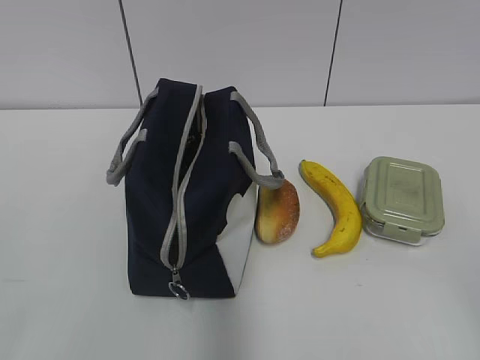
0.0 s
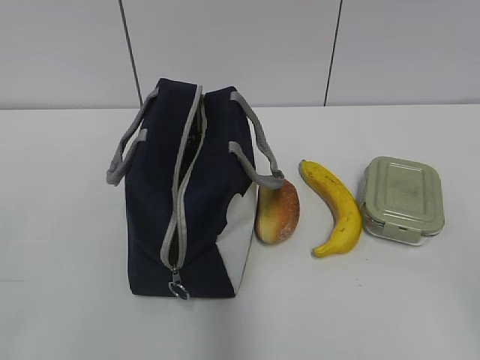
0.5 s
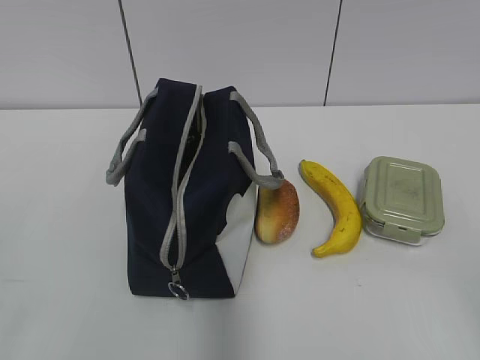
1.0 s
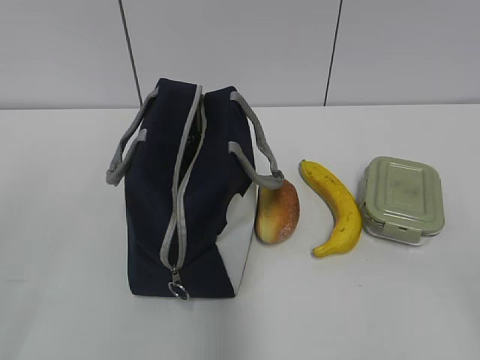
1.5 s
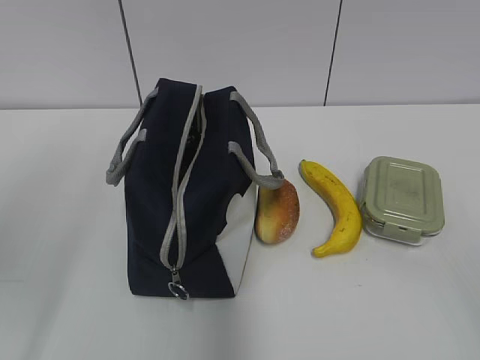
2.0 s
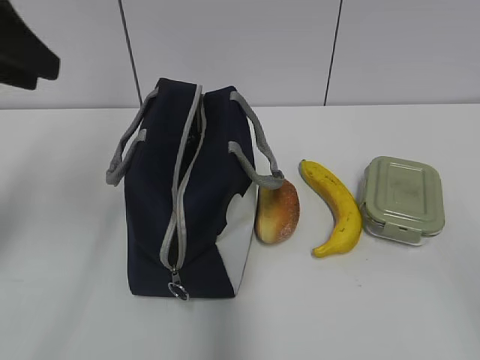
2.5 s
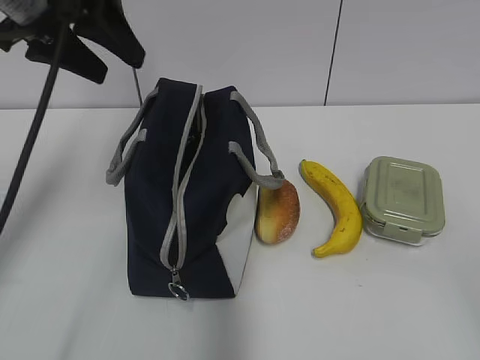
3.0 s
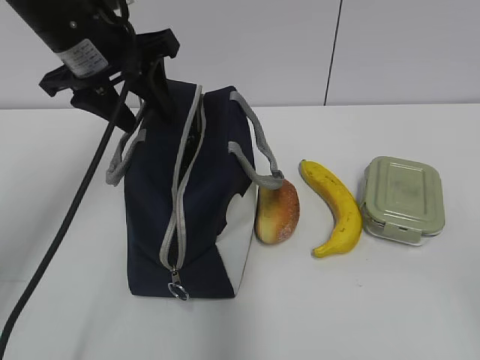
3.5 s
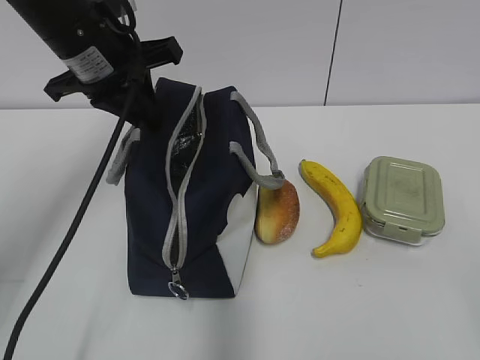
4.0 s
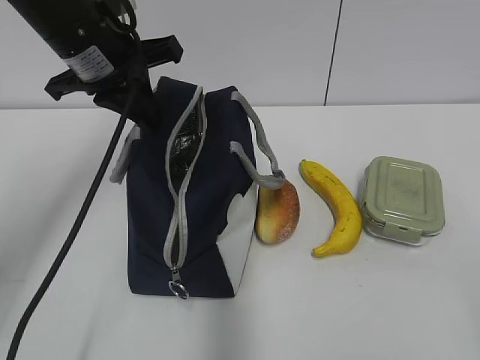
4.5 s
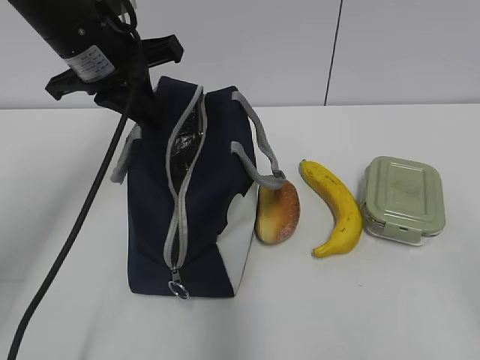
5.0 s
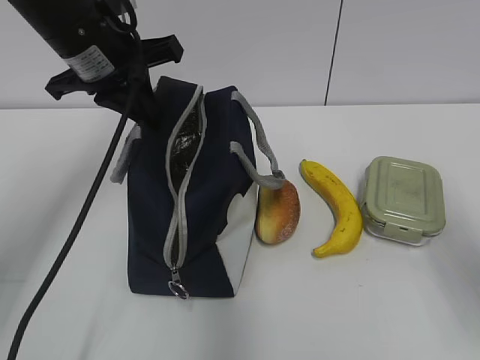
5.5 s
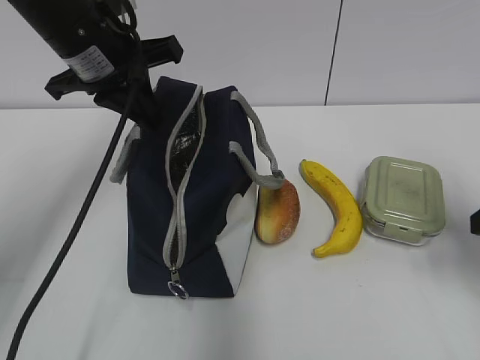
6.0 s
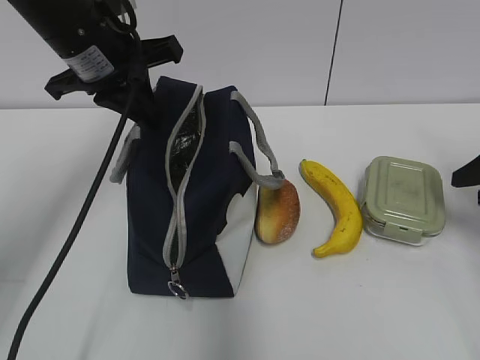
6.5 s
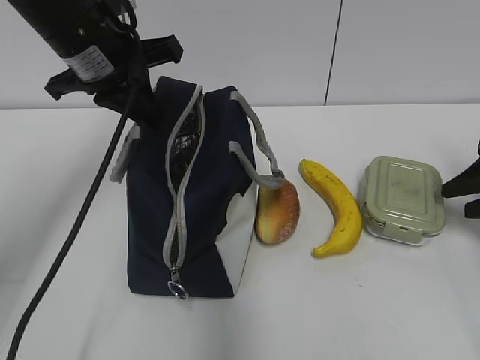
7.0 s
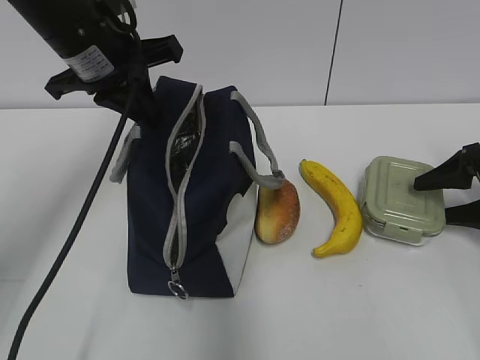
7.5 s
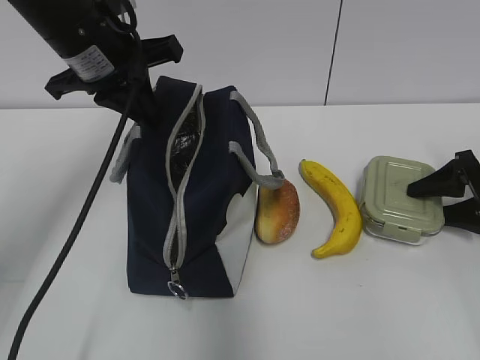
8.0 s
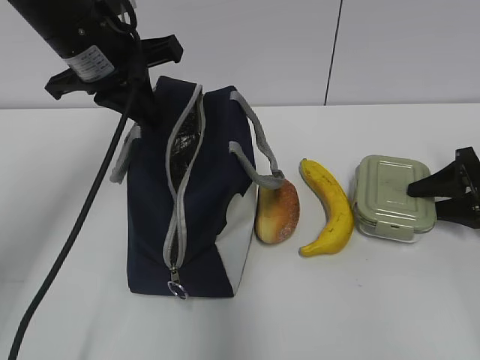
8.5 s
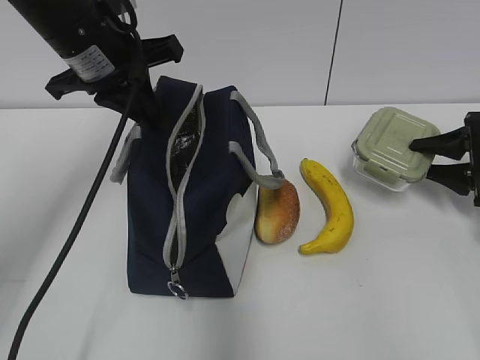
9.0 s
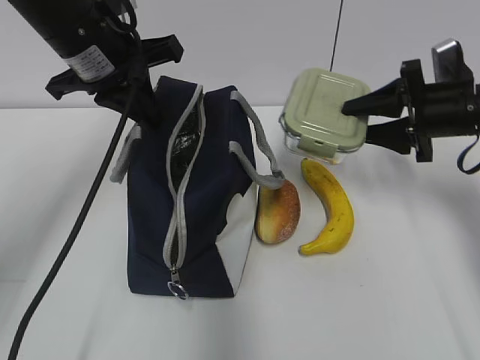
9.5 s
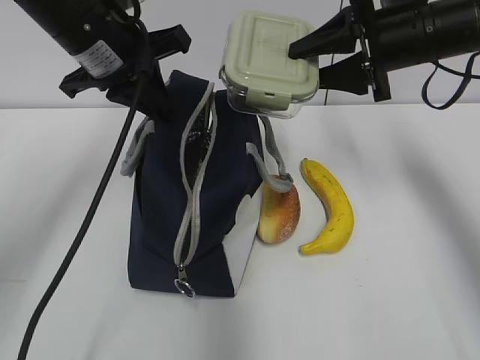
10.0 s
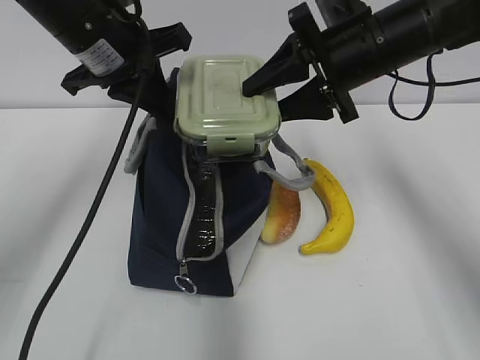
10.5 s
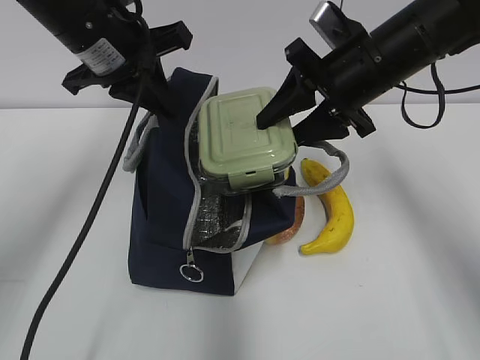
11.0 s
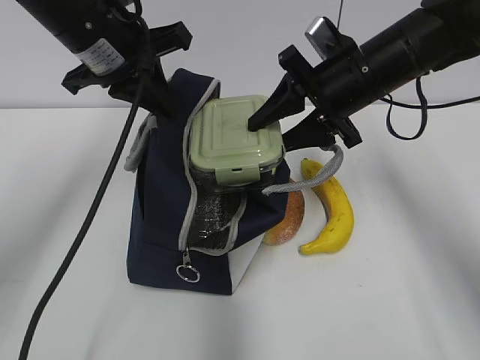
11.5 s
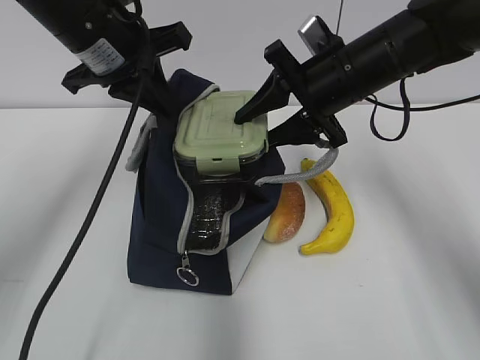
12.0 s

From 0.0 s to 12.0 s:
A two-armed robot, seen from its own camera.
Step, from 0.0 s to 8.5 s: Grab the lunch box with your right hand.
From 2.0 s to 4.0 s: The left gripper heads forward and to the right, covering about 25 cm, and opens, then closes once more.
From 4.0 s to 6.0 s: The right gripper goes roughly 25 cm forward.
From 6.0 s to 8.0 s: The right gripper heads forward, downward and to the right, covering roughly 20 cm.
From 8.0 s to 10.0 s: The right gripper heads upward and to the left, covering approximately 25 cm.
From 10.0 s to 12.0 s: The right gripper travels to the left by some 5 cm.

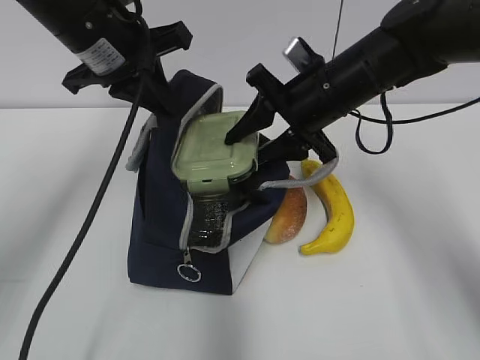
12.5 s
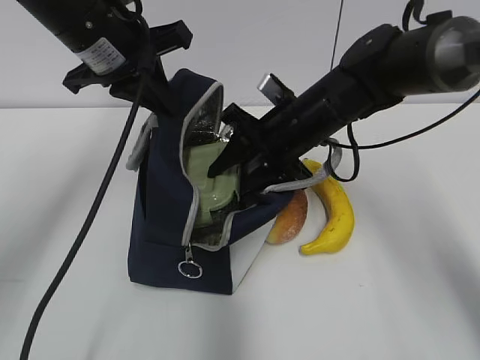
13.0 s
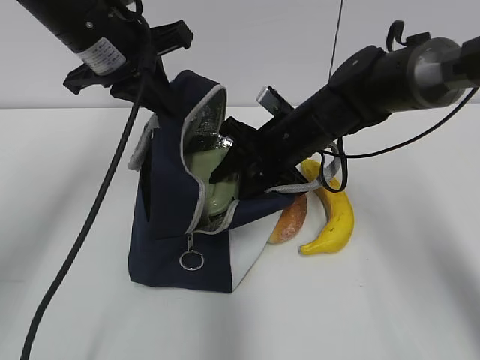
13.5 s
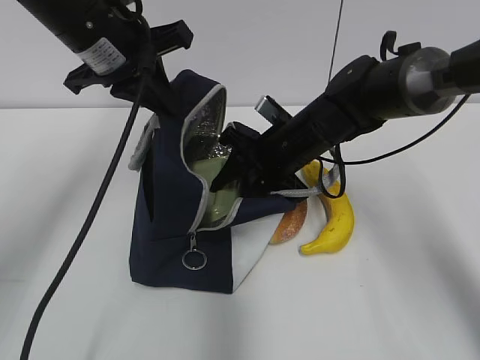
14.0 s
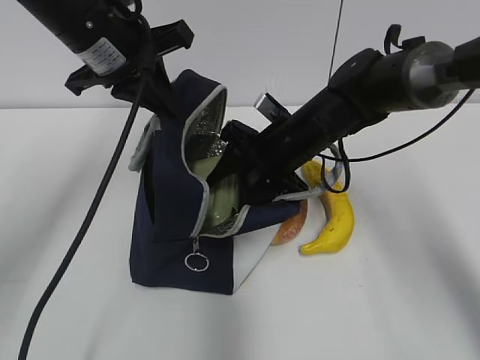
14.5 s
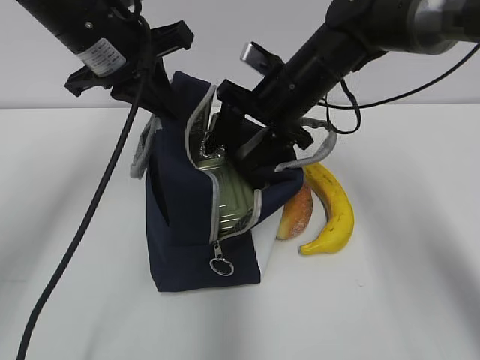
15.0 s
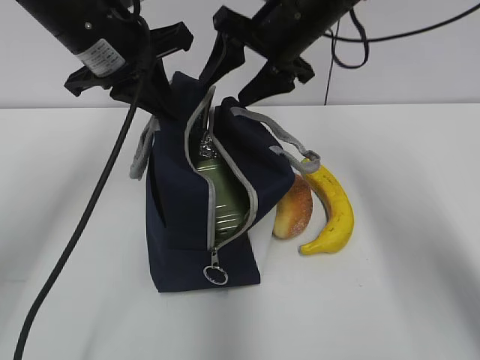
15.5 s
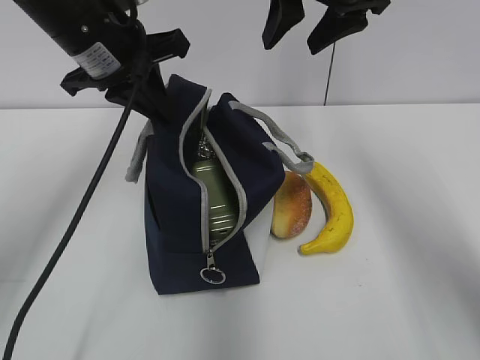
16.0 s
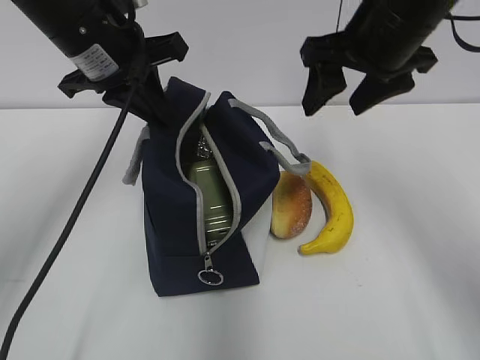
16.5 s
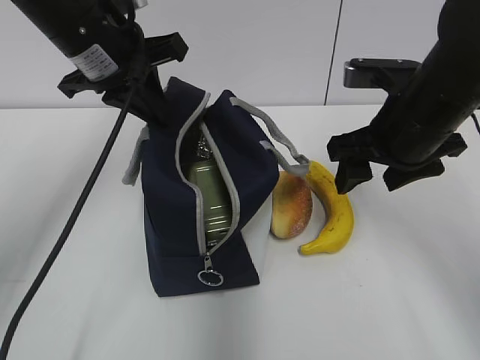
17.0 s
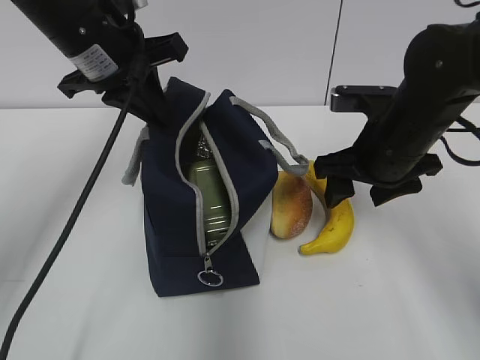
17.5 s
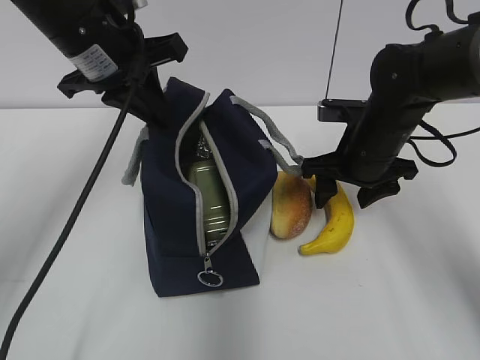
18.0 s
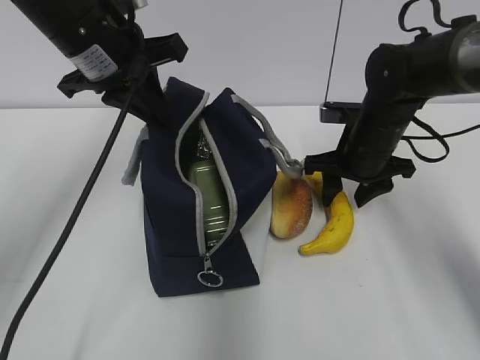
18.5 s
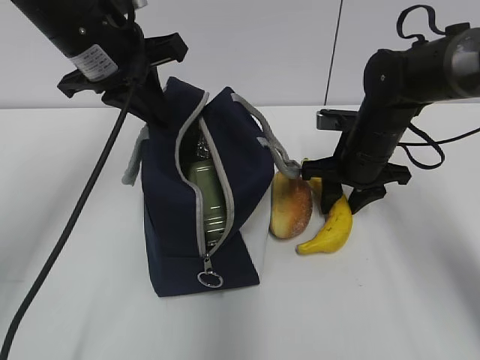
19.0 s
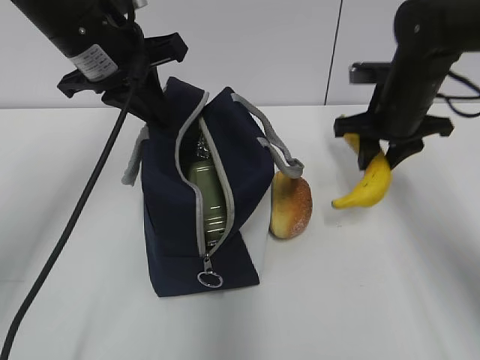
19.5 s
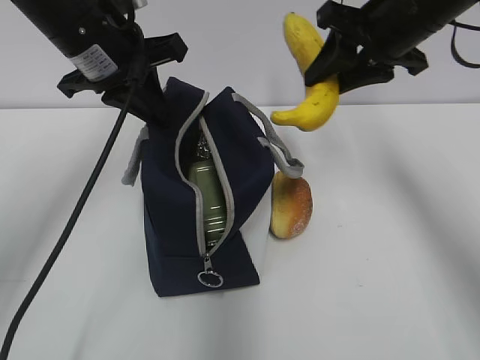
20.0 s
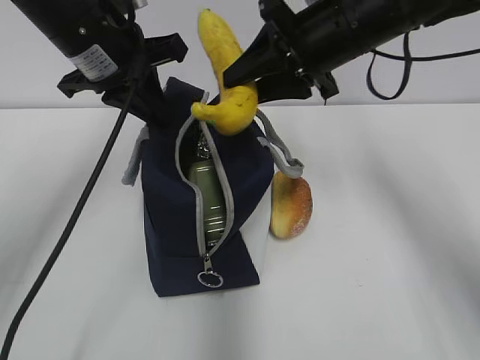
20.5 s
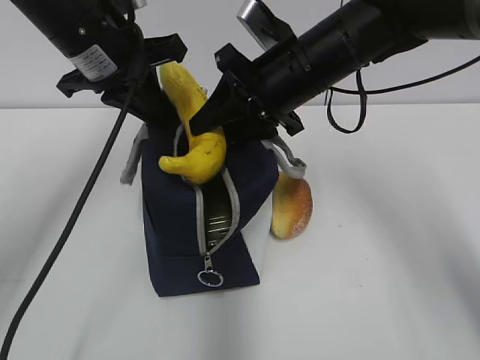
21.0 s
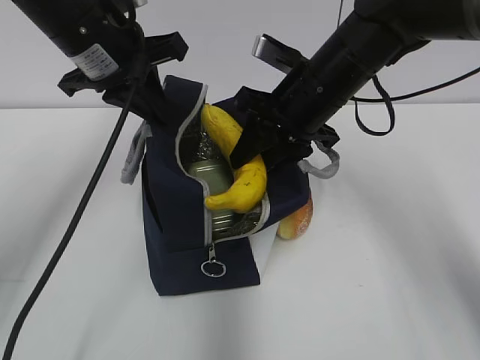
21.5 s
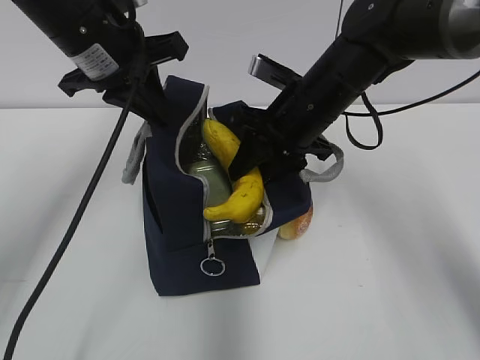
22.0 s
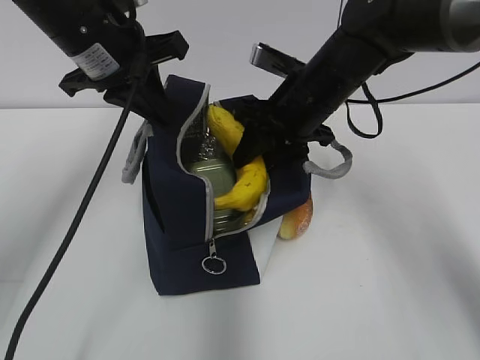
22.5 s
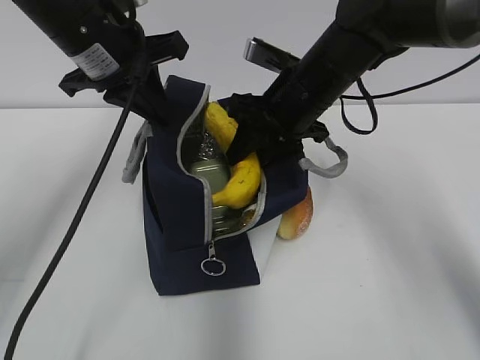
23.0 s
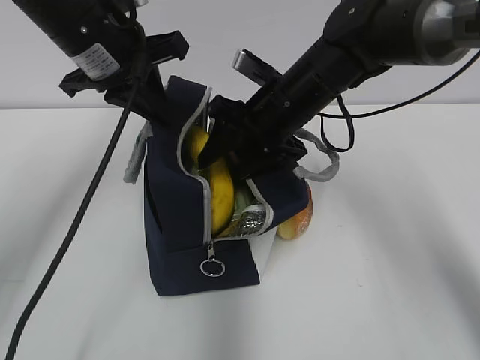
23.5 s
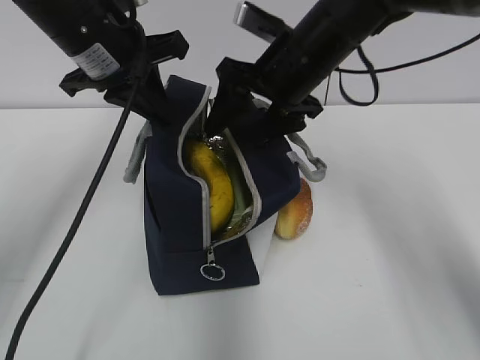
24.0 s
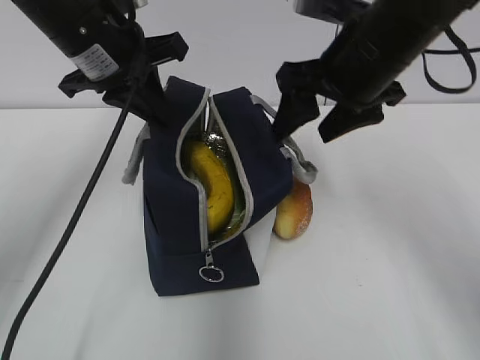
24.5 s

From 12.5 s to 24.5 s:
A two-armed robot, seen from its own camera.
Step, from 12.5 s to 14.5 s: Place it into the bag with your right hand.
Step, from 15.0 s to 19.0 s: Grab the banana with your right hand.
Step, from 19.5 s to 23.5 s: Place it into the bag with your right hand.
From 12.5 s to 14.5 s: The right gripper goes approximately 10 cm downward.
From 14.5 s to 16.5 s: The right gripper travels upward by approximately 15 cm.
From 16.5 s to 18.5 s: The right gripper goes approximately 15 cm downward.
From 18.5 s to 20.5 s: The right gripper shifts some 15 cm upward.
From 20.5 s to 22.5 s: The right gripper heads downward, covering some 10 cm.
From 22.5 s to 24.5 s: The right gripper travels upward by roughly 10 cm, and opens up.

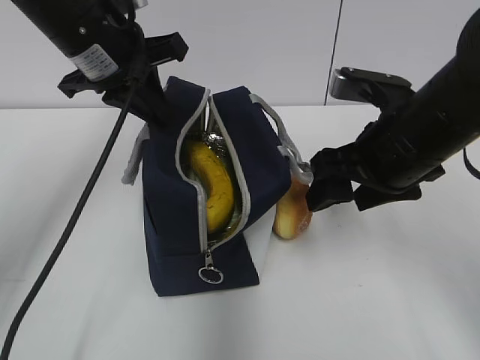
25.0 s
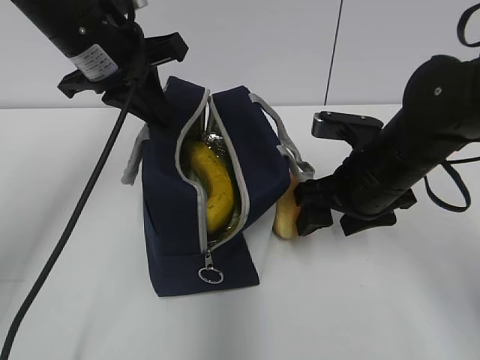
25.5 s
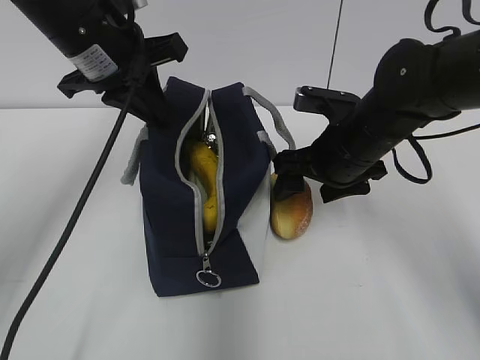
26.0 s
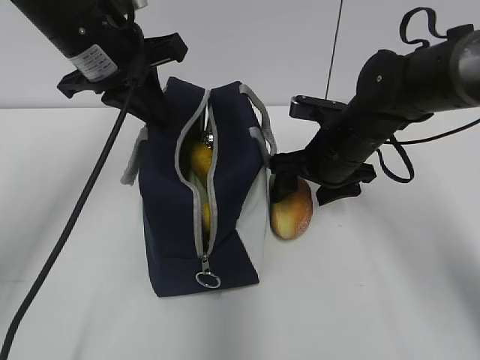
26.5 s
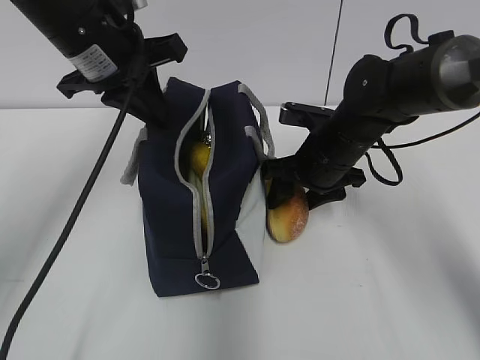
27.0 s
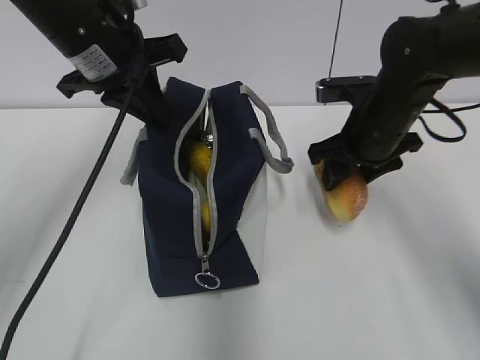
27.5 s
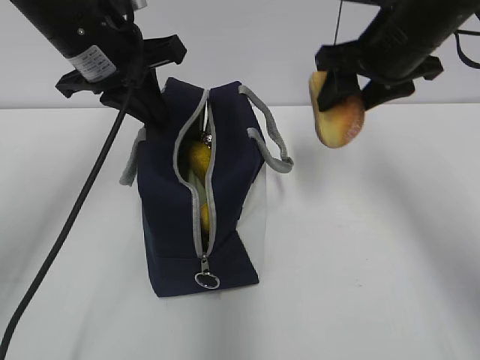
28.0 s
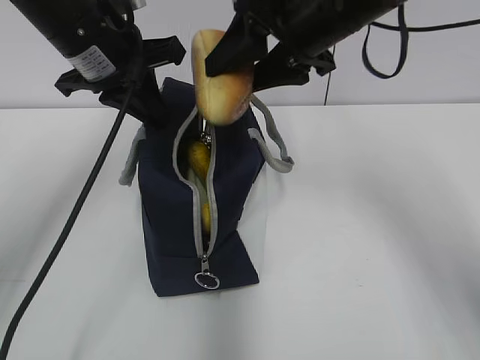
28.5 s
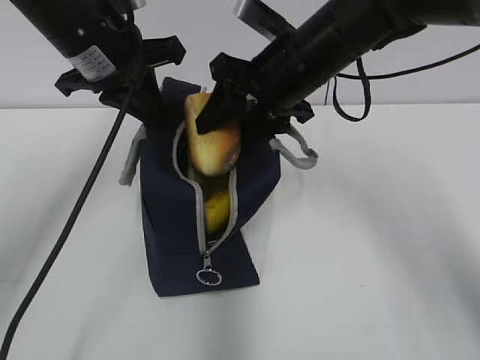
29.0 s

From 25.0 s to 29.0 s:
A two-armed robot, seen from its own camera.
Step, from 25.0 s to 27.0 s: Grab the bread with your right hand.
From 25.0 s to 27.0 s: The right gripper heads forward and downward, covering roughly 15 cm.
From 27.0 s to 29.0 s: The right gripper is displaced upward by roughly 10 cm.
